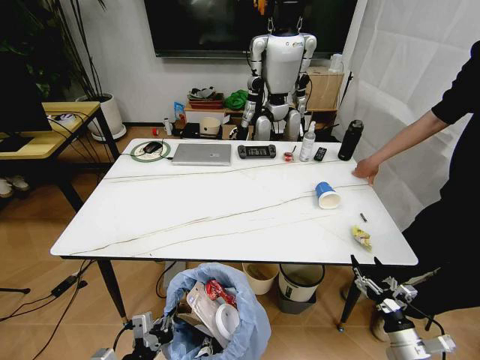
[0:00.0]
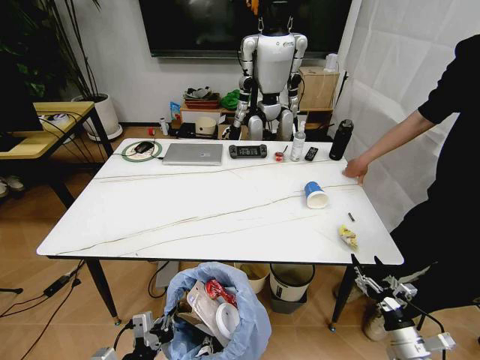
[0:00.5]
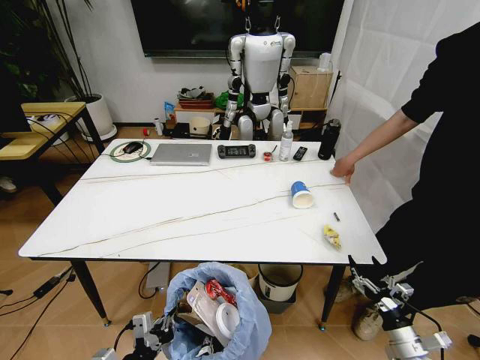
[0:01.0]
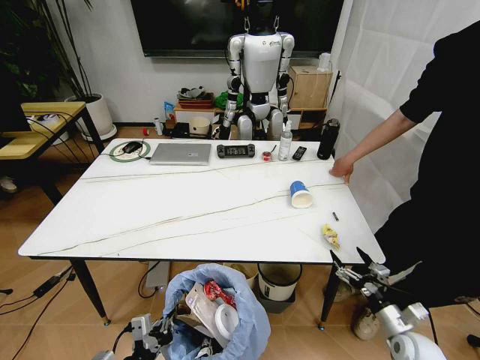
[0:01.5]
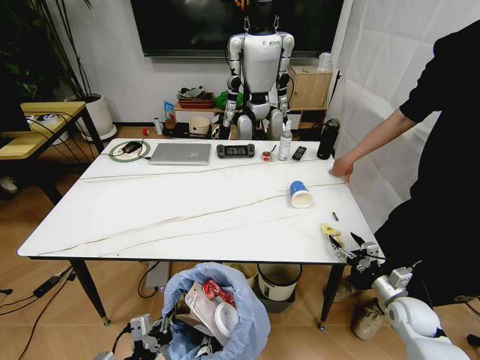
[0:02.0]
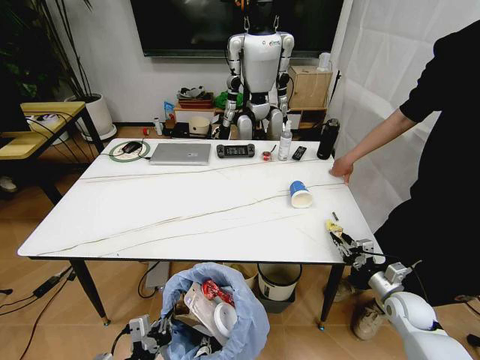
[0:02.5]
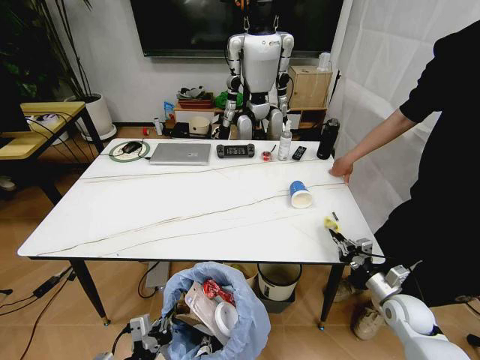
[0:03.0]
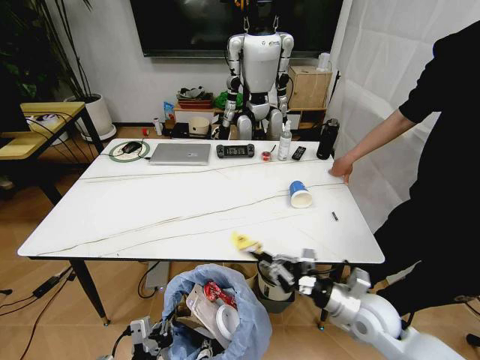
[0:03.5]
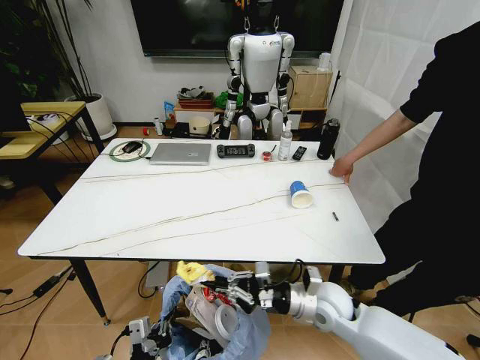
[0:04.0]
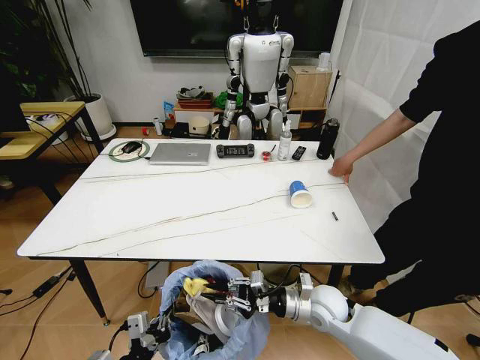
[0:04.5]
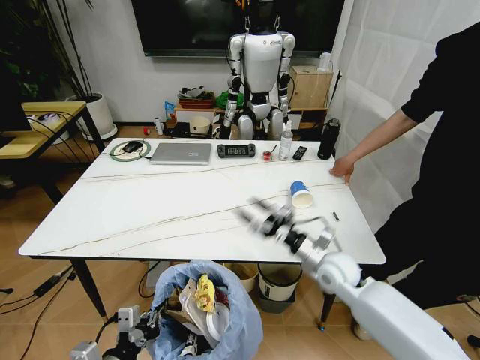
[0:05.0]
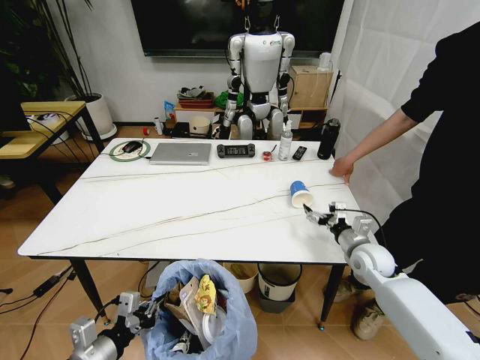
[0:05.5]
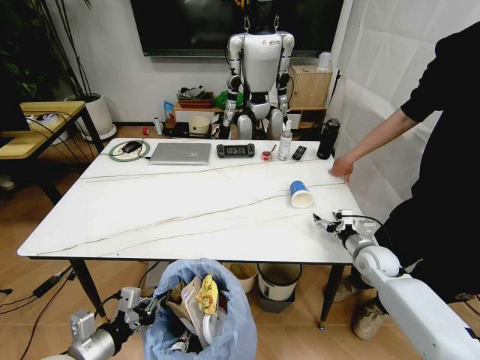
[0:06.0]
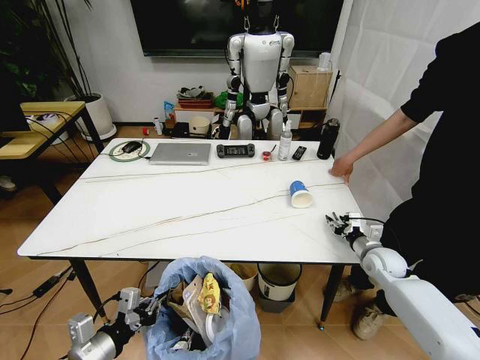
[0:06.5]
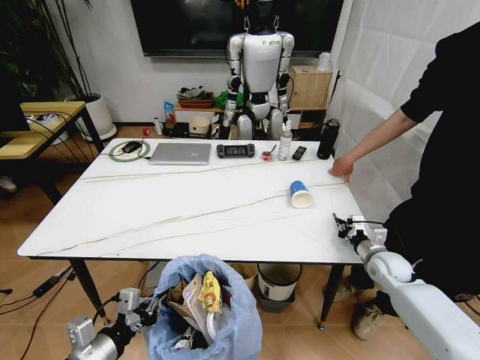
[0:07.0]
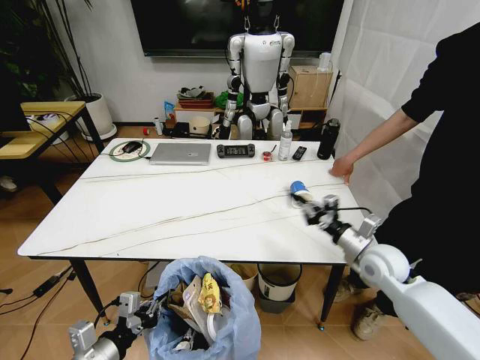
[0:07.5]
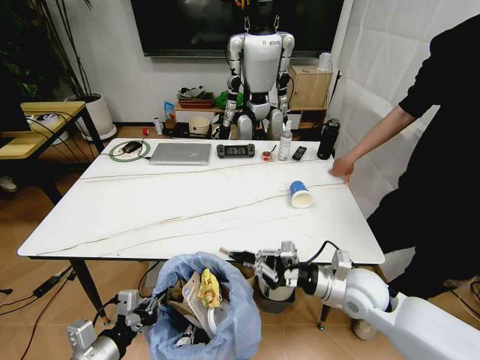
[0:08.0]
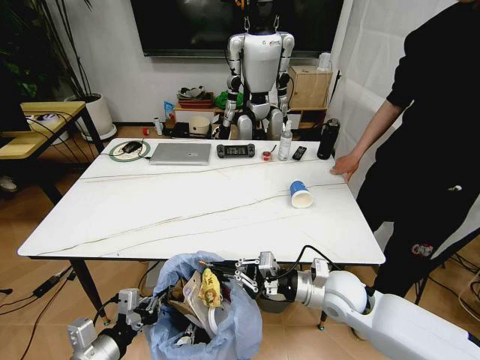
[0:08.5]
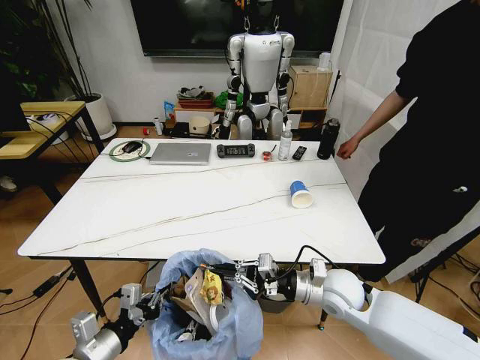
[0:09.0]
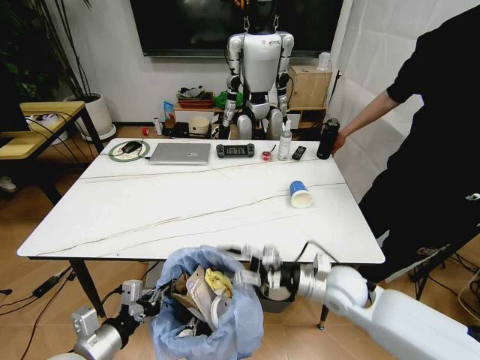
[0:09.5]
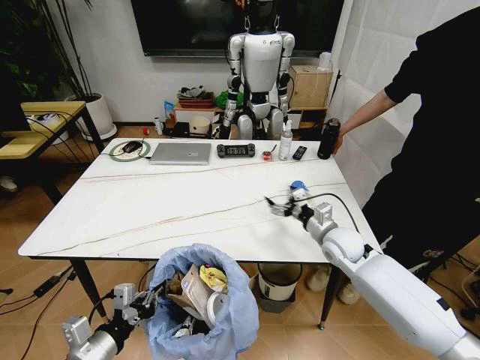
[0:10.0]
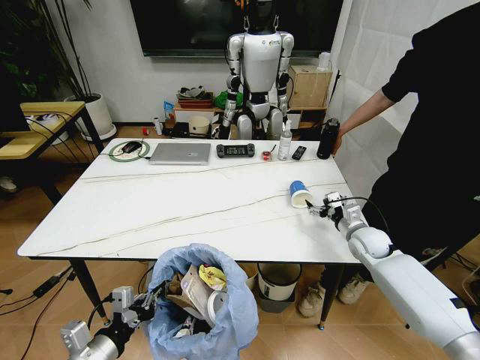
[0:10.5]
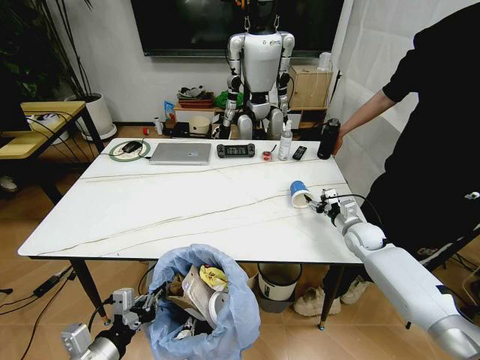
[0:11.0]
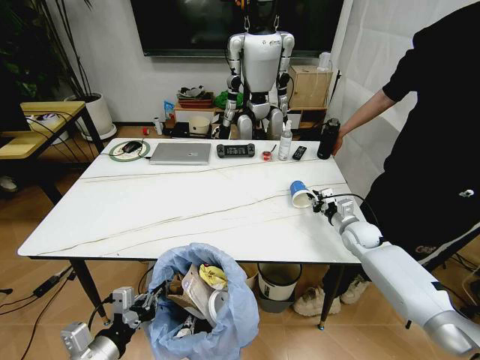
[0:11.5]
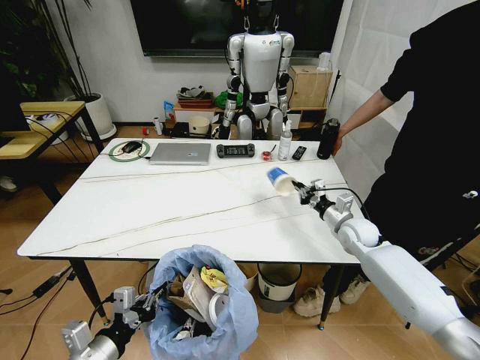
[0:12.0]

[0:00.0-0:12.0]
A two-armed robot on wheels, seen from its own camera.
Task of the whole recording: Pick up the trash bin and place the trash from the table into it.
0:00.0 to 0:02.0: The right gripper travels forward by roughly 10 cm.
0:02.0 to 0:04.0: The right gripper heads to the left, covering about 25 cm, and closes.
0:04.0 to 0:06.0: The right gripper is displaced to the right and forward by some 20 cm, and opens, while the left gripper moves to the left and forward, about 10 cm.
0:06.0 to 0:08.0: The right gripper shifts roughly 20 cm to the left, backward and upward, and closes its fingers.
0:08.0 to 0:10.0: The right gripper goes some 10 cm forward, and opens.
0:10.0 to 0:12.0: The right gripper is displaced to the right by approximately 5 cm, and closes.

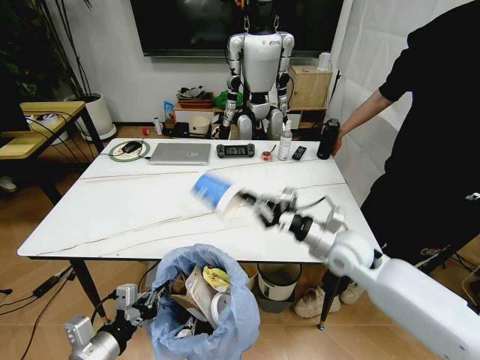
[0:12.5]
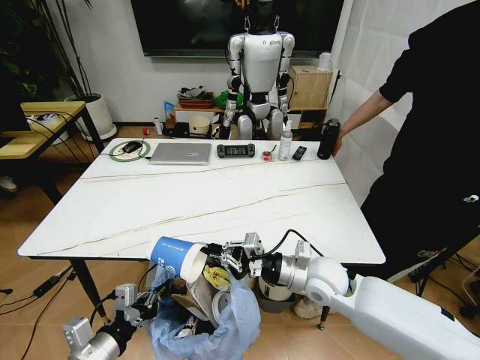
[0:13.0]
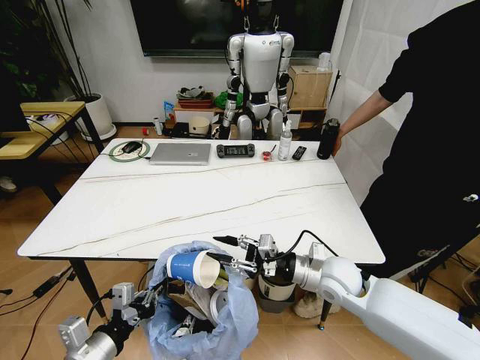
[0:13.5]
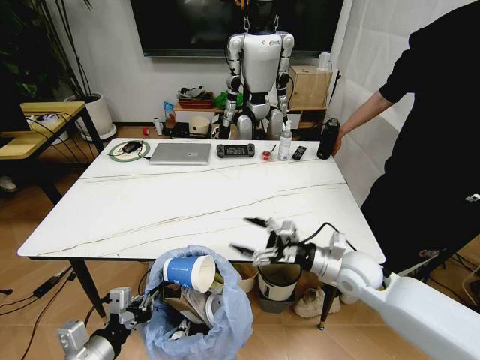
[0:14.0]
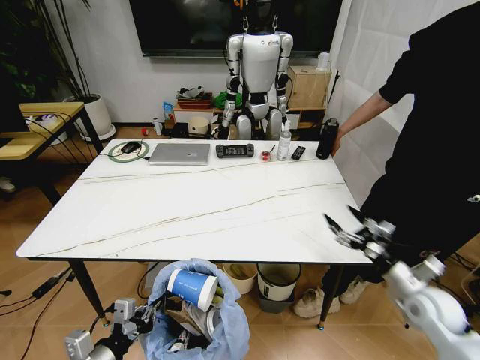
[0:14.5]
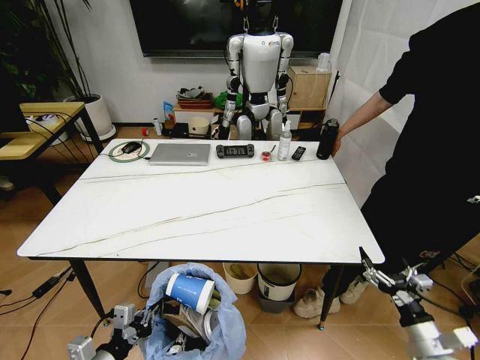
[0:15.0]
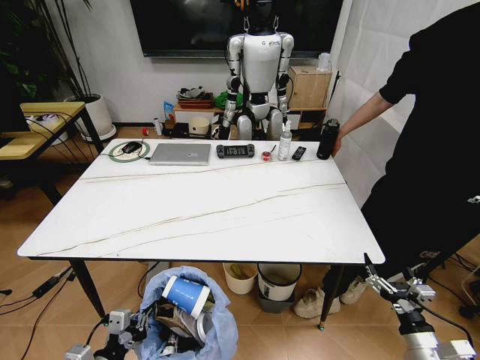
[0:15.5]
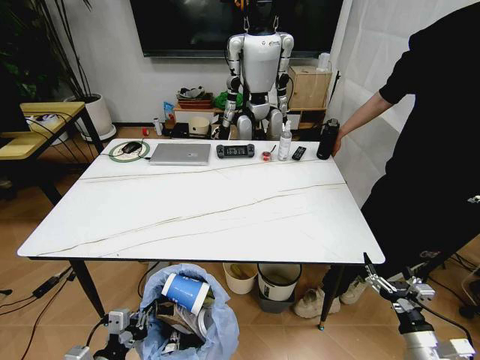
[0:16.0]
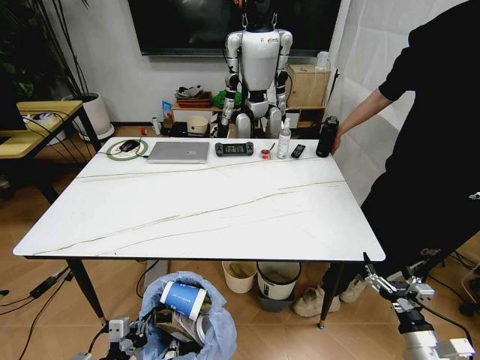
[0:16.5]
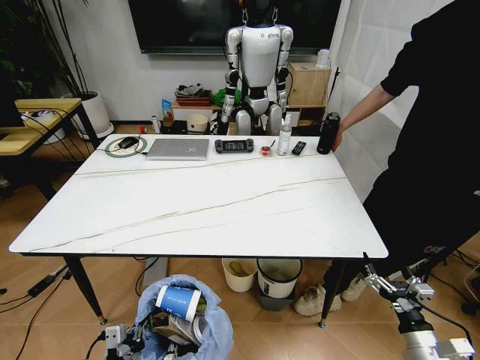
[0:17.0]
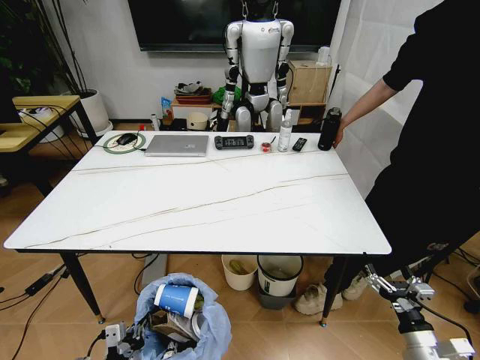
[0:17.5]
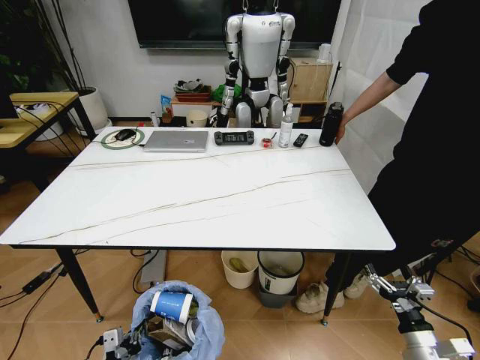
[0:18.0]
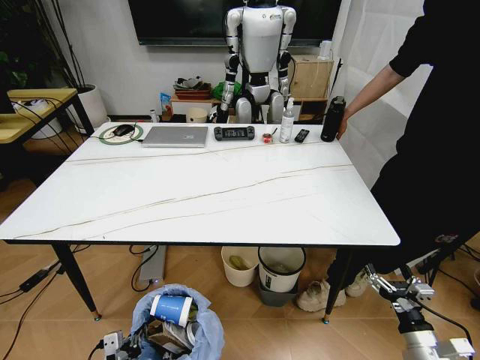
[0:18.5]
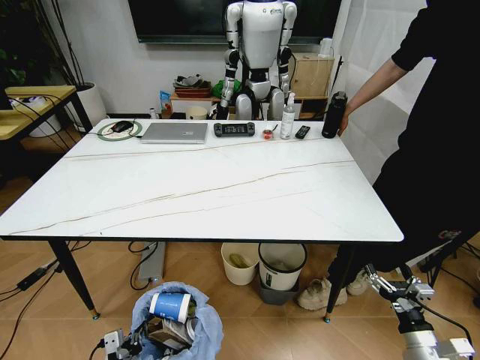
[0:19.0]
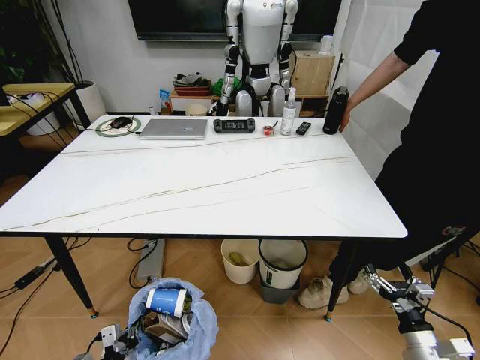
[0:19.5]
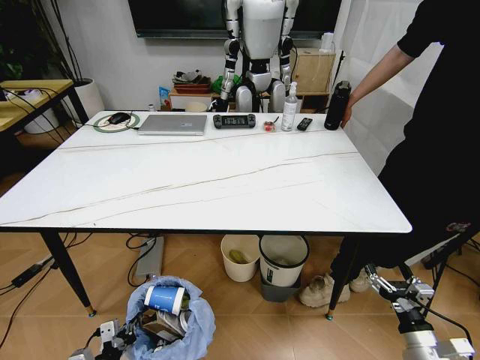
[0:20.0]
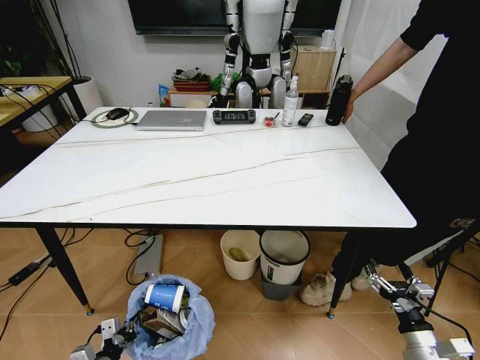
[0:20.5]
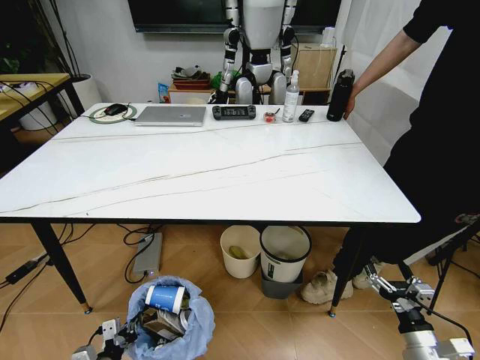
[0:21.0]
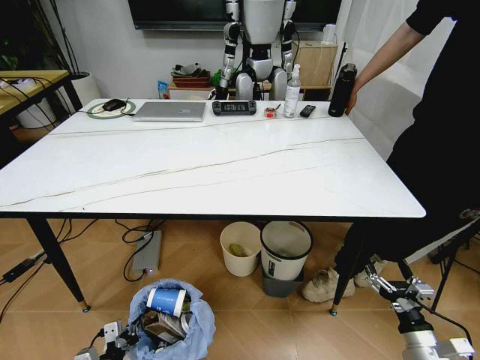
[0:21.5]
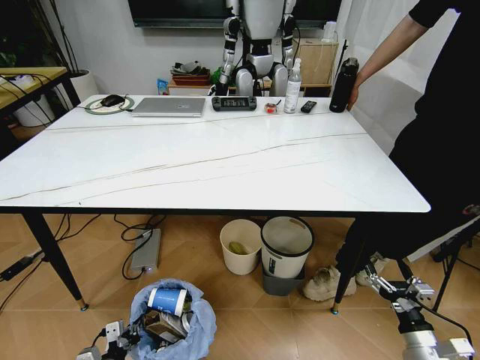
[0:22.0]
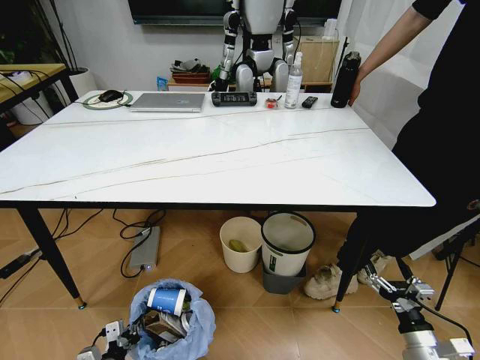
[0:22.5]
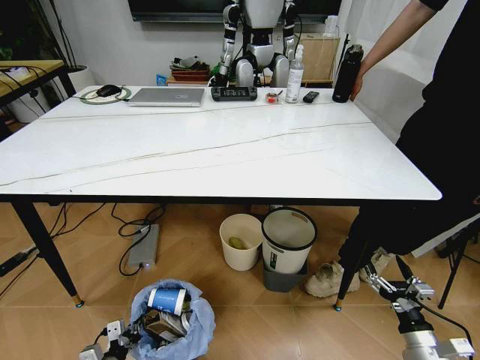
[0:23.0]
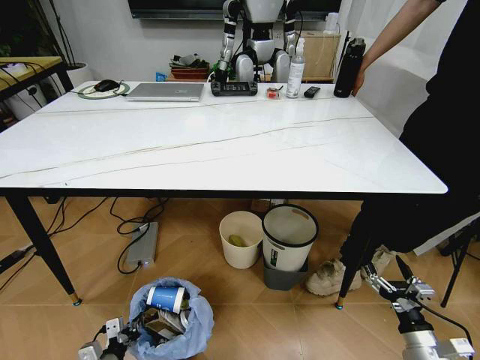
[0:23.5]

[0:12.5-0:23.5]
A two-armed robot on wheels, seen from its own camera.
Task of the whole recording: Pick up the trash bin and place the trash from the table into it.
0:12.5 to 0:14.5: The right gripper is displaced to the right, backward and downward by about 20 cm, and opens up.
0:14.5 to 0:16.0: The right gripper moves backward and downward, approximately 15 cm.
0:16.0 to 0:18.0: The left gripper travels downward by about 5 cm.

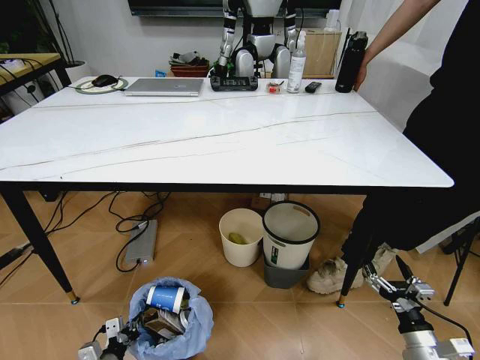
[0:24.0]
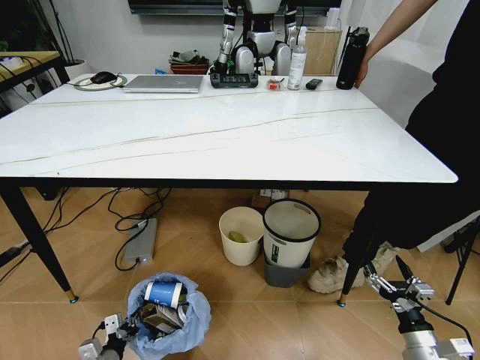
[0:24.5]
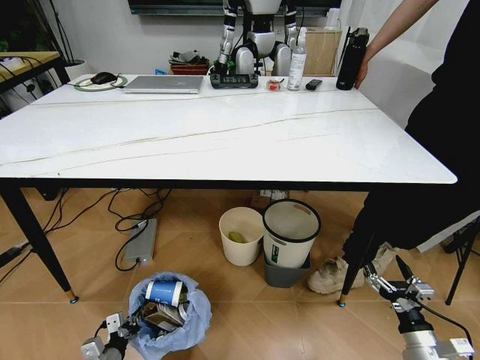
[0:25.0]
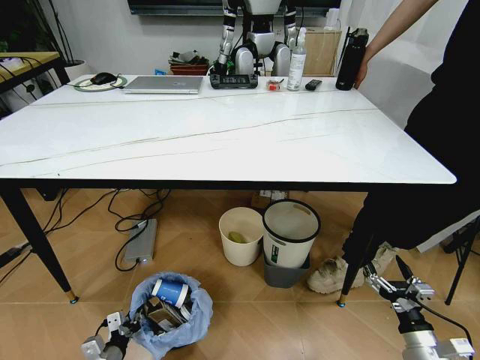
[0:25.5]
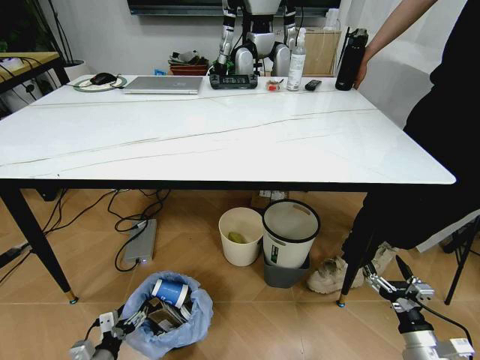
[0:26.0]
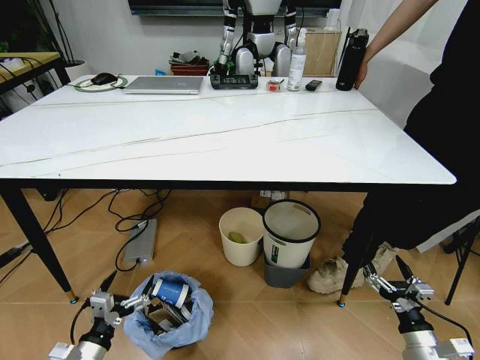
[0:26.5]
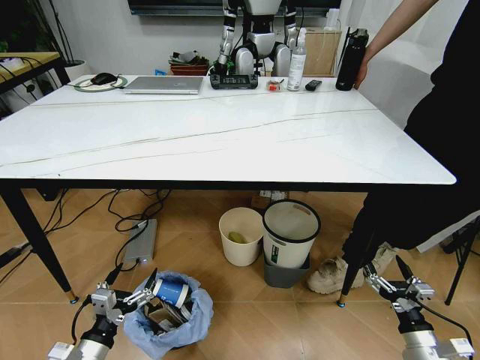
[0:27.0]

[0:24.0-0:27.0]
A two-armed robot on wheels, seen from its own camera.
Task of the whole recording: Pick up the trash bin and place the trash from the table into it.
0:24.0 to 0:25.5: The grippers make only small movements.
0:25.5 to 0:27.0: The left gripper is displaced upward by some 15 cm, and opens its fingers.
